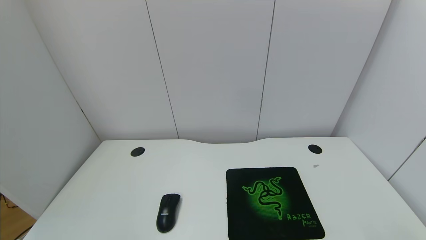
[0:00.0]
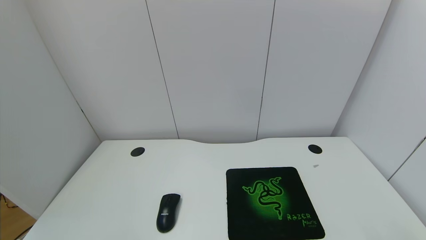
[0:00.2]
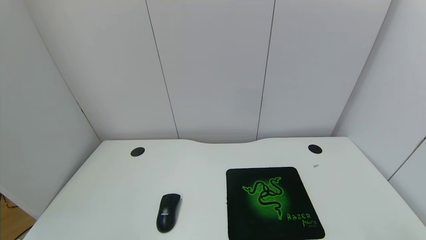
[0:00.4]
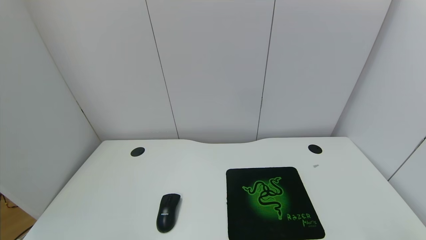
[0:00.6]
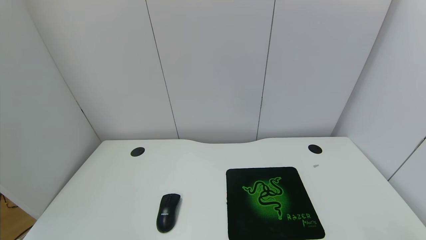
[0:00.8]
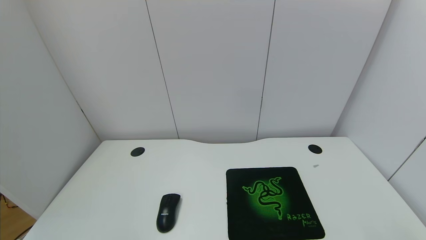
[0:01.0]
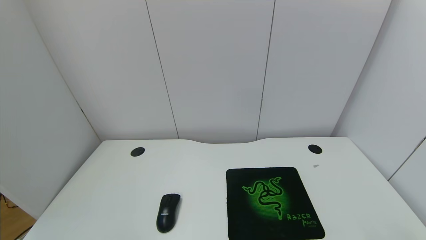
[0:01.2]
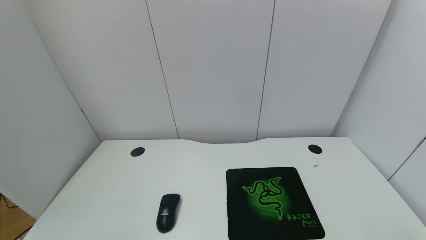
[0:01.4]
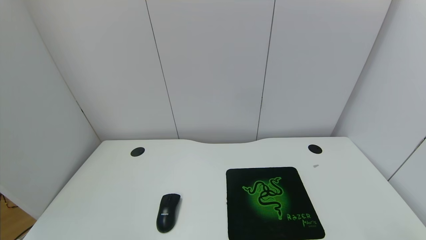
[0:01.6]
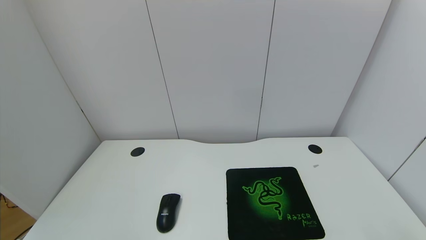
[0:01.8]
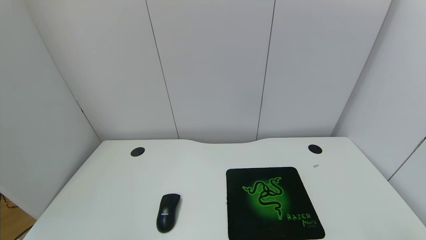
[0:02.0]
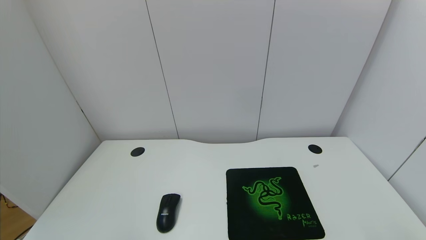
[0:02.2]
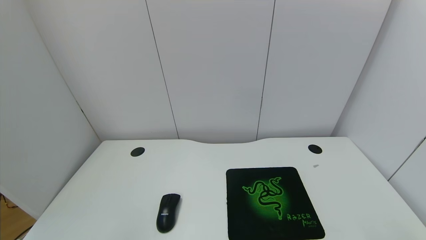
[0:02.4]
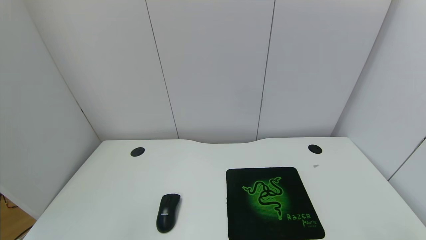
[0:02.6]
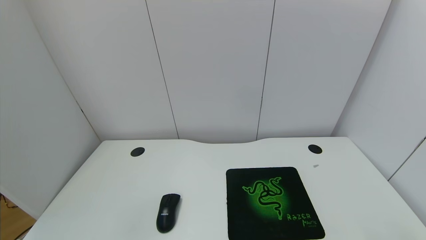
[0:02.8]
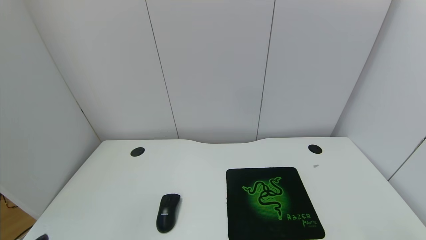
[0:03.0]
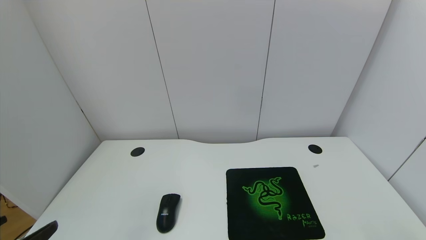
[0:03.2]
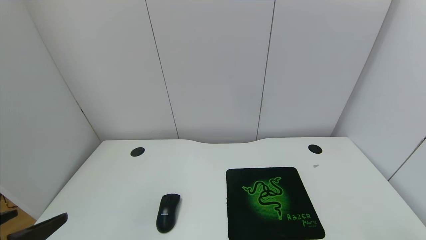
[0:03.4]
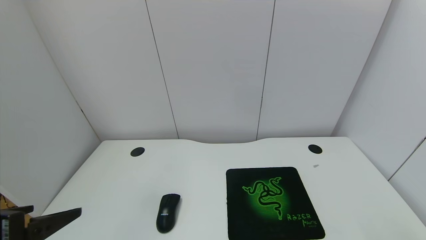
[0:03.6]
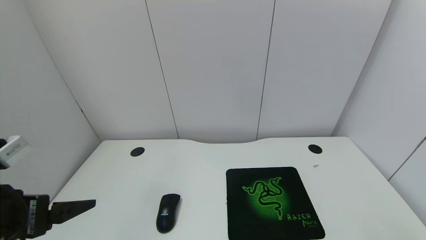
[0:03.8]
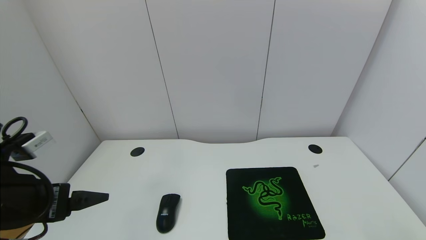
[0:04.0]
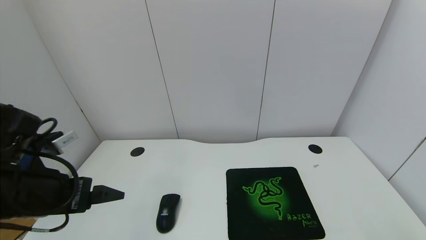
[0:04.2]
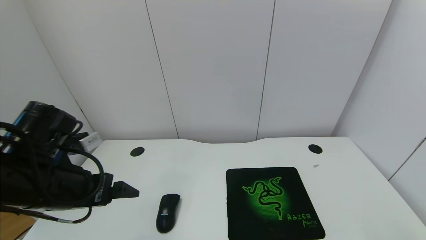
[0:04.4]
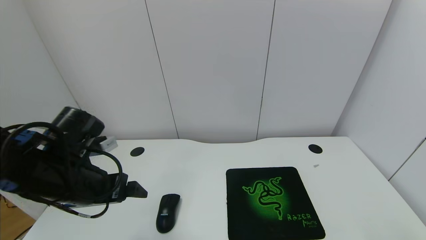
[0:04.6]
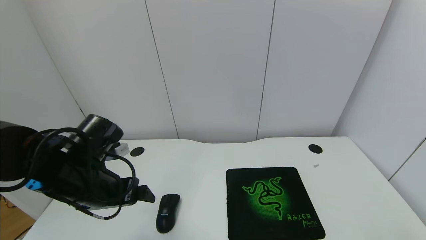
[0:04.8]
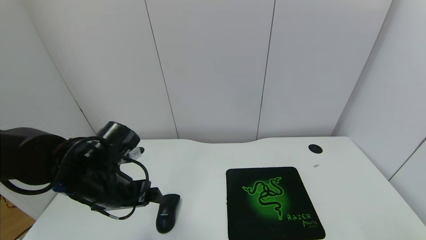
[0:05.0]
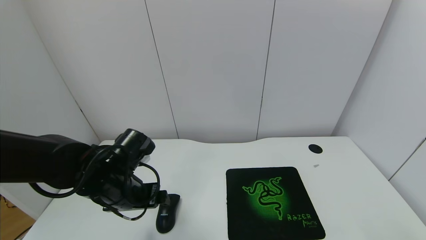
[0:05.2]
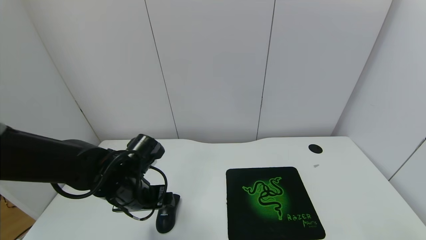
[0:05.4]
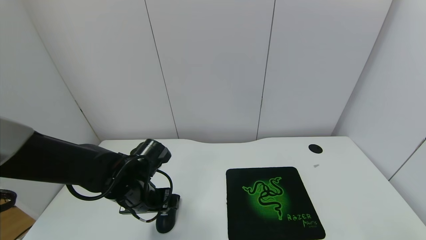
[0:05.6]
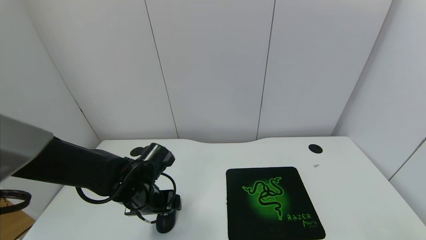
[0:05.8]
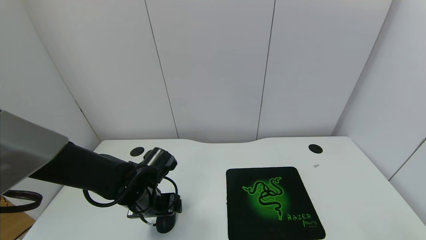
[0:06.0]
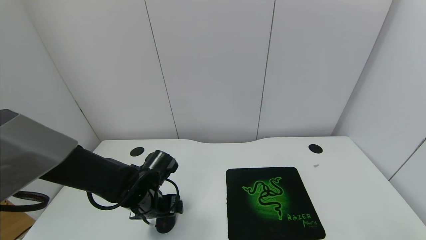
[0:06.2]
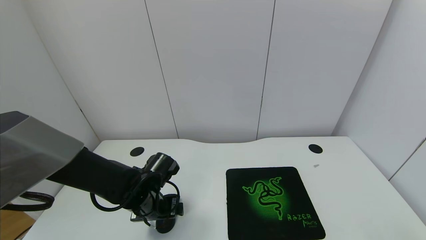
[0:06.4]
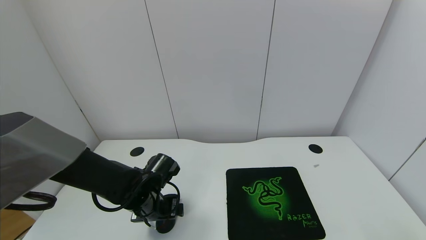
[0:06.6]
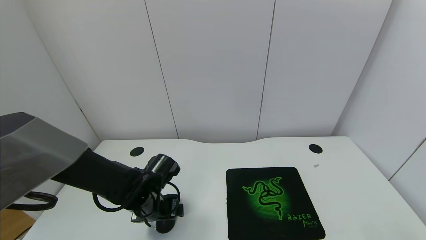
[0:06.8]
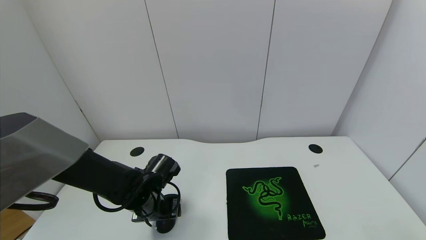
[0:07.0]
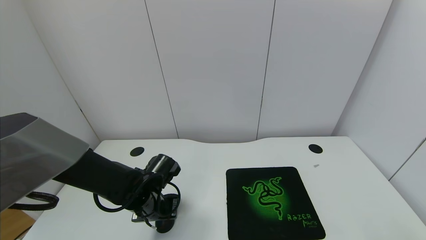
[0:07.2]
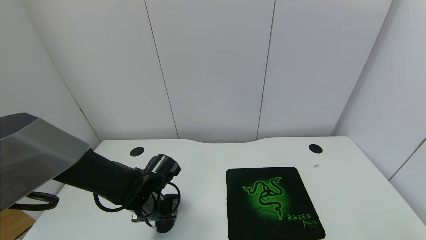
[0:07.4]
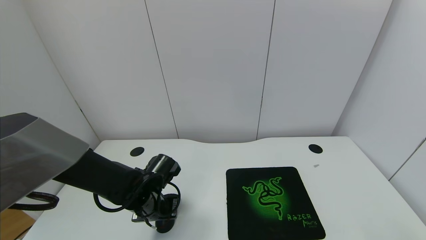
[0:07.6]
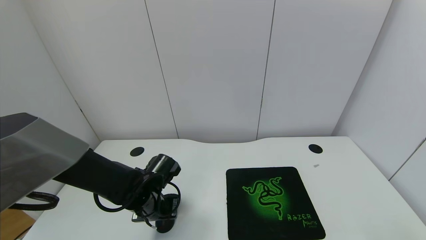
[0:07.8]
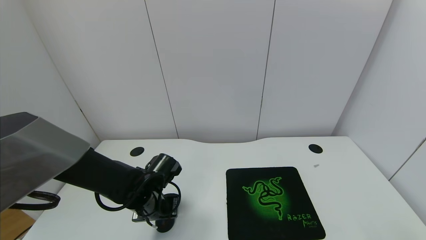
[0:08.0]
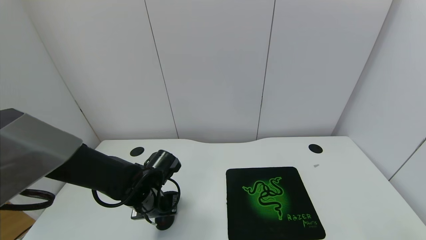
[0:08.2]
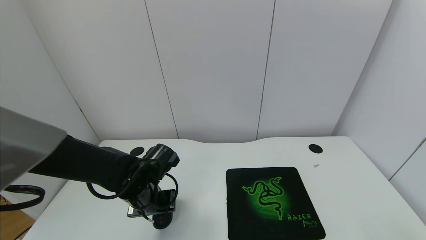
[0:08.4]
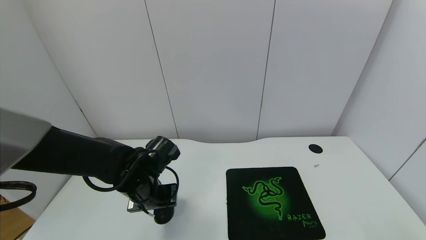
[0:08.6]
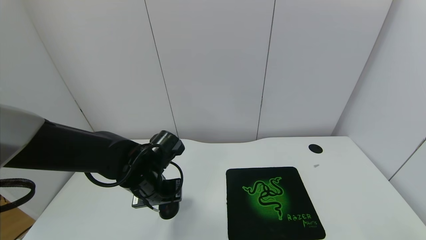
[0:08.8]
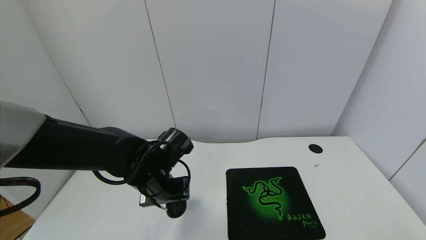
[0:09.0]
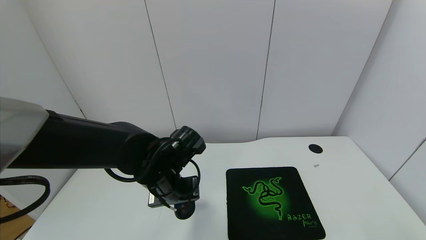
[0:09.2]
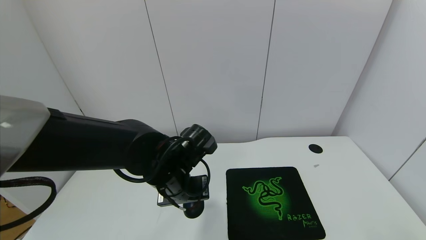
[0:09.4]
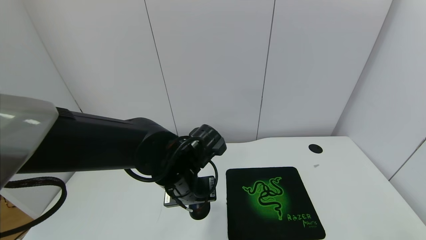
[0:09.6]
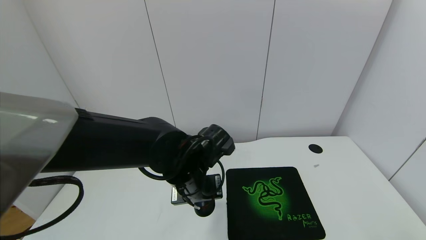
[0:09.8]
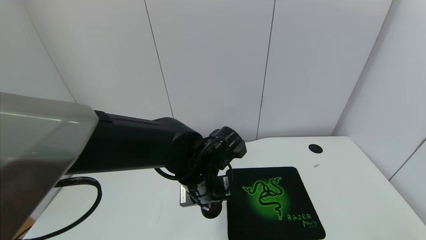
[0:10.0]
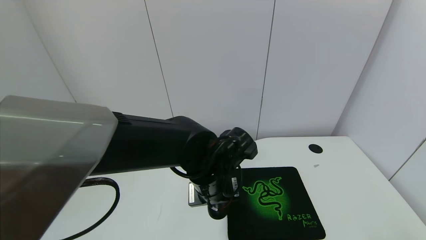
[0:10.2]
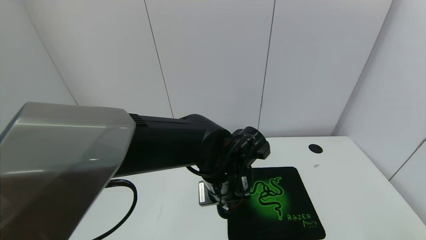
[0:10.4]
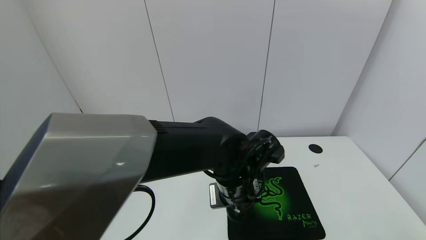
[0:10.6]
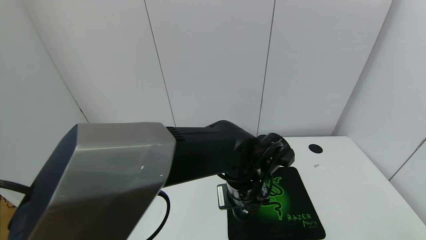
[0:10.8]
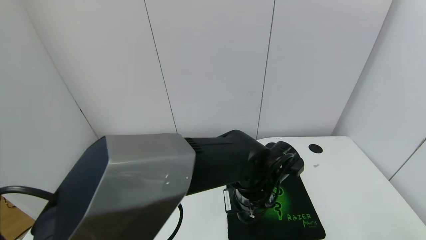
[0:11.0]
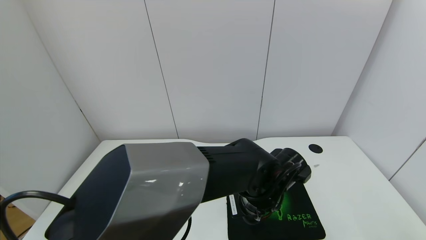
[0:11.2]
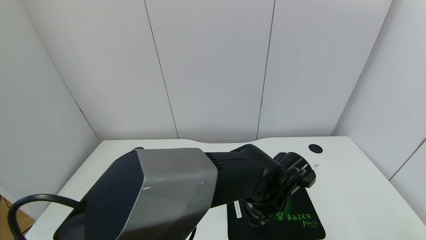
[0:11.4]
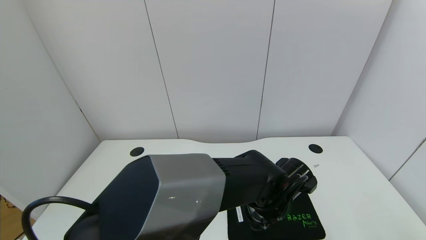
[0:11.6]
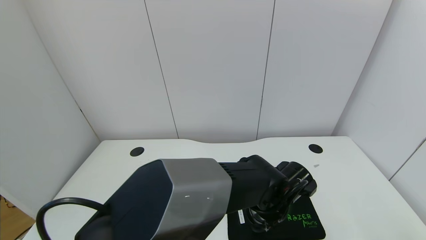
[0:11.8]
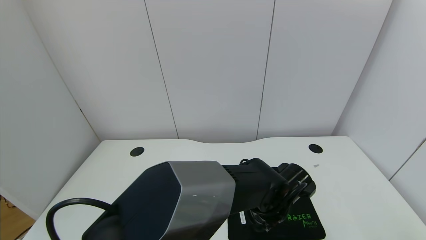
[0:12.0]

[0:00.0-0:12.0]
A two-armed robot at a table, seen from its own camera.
Task of the whole recording: use the gripper to move the mouse from one side of the table to the mouse pad on the opposite side.
Step, 0:00.0 to 0:08.0: Grasp the mouse with the left gripper.
0:00.0 to 0:01.6: The two grippers keep their place.
0:03.0 to 0:04.4: The left gripper goes roughly 20 cm forward.
0:04.4 to 0:06.0: The left gripper travels downward, forward and to the right by roughly 15 cm.
0:06.0 to 0:07.6: The left gripper closes up.
0:07.6 to 0:09.0: The left gripper travels upward by about 10 cm.
0:09.0 to 0:10.4: The left gripper shifts about 15 cm to the right.
0:10.4 to 0:12.0: The left gripper shifts about 10 cm to the right and downward.

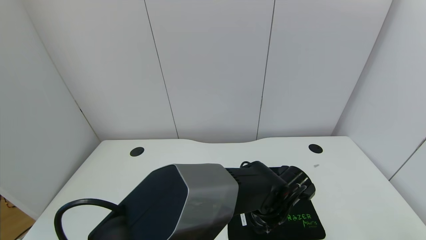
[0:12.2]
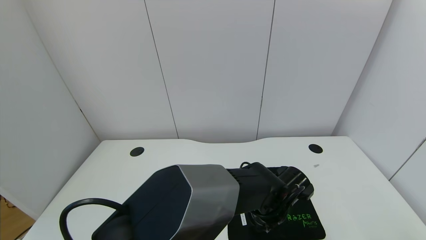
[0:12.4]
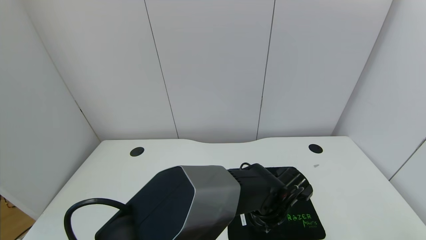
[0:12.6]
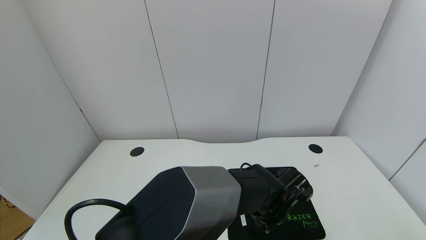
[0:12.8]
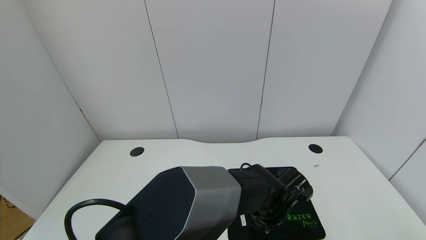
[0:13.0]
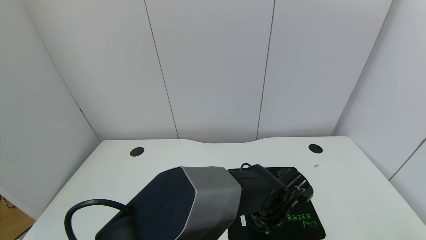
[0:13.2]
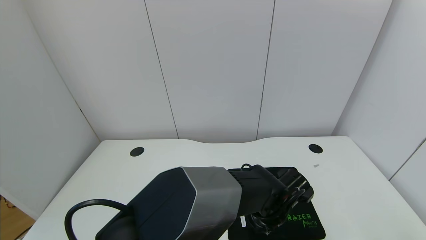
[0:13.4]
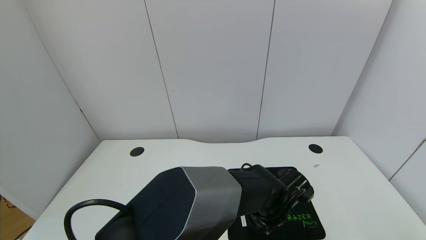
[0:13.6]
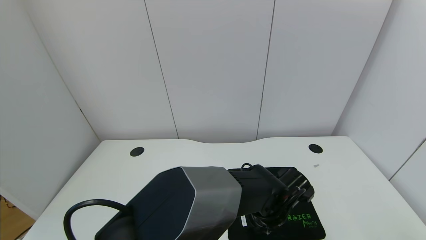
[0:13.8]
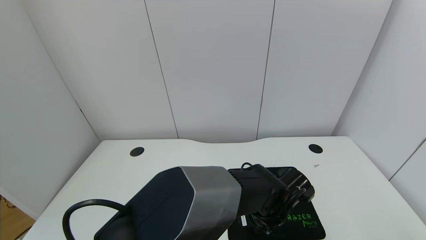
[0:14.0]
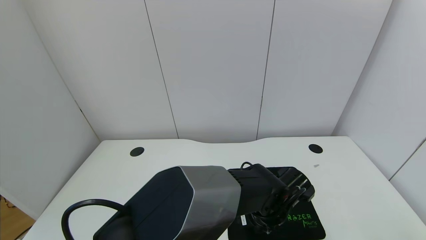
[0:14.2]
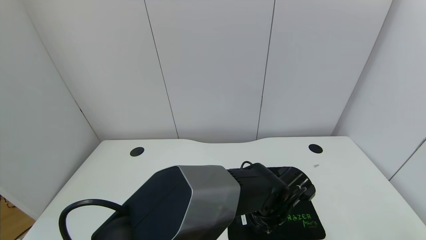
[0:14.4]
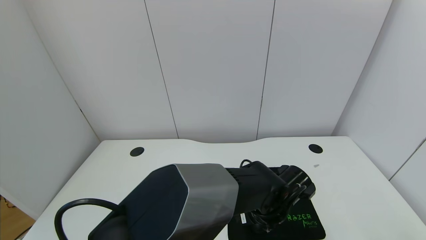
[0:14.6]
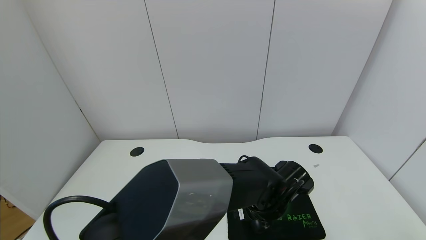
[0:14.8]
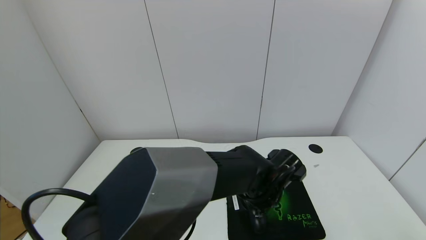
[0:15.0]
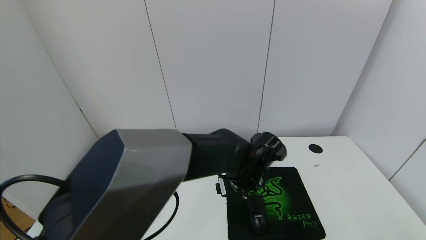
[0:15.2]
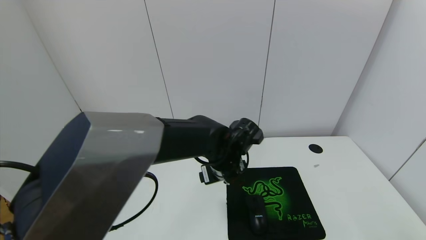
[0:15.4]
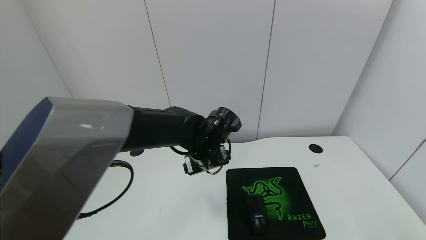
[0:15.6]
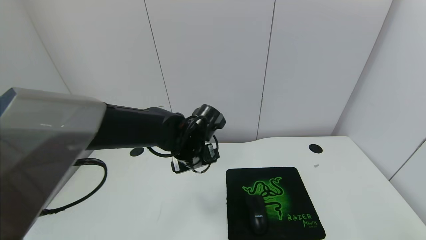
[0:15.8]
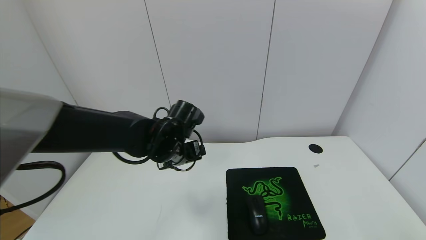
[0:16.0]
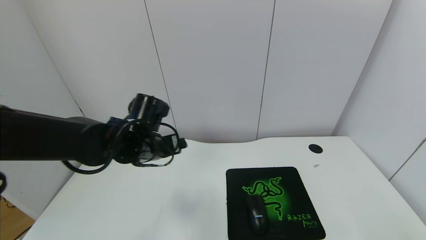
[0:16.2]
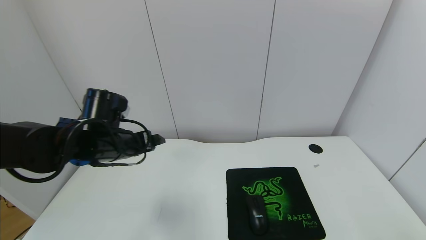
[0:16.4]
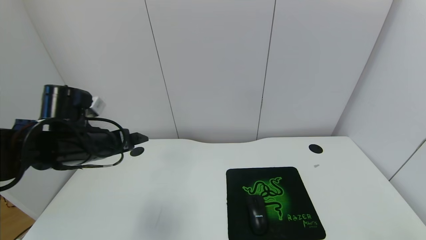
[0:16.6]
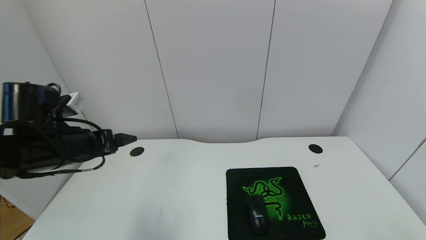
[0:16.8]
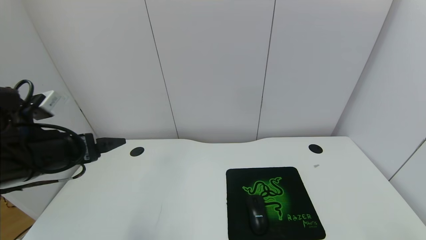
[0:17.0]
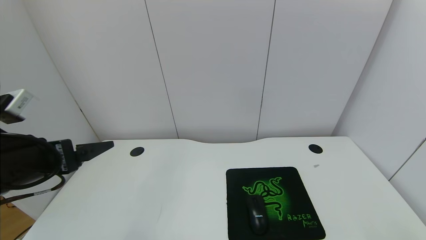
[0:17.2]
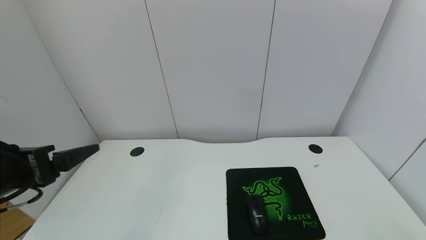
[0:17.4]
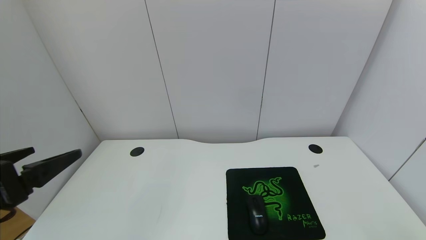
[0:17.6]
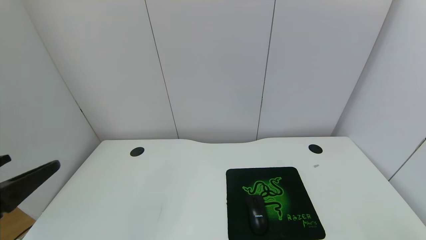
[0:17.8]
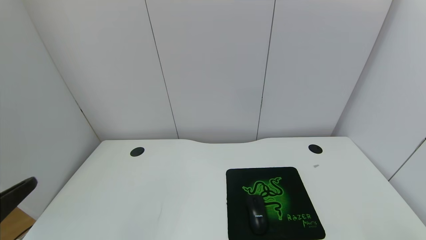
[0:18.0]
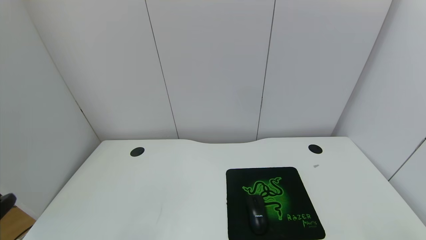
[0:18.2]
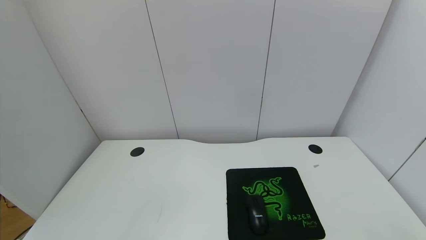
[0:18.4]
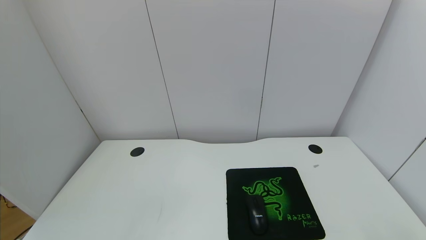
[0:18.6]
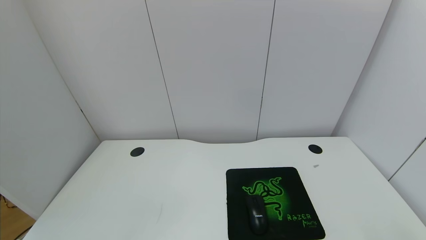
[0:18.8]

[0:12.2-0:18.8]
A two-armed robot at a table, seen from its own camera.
Task of the whole recording: use the gripper to move the mouse from one side of the table to the mouse pad on the opposite side.
Step, 0:12.2 to 0:14.8: Place the mouse on the mouse pad with the left gripper.
0:12.2 to 0:13.8: The left gripper opens up.
0:13.8 to 0:15.4: The left gripper shifts about 15 cm to the left, upward and forward.
0:15.4 to 0:17.2: The left gripper moves to the left and backward, some 30 cm.
0:17.2 to 0:18.8: The left gripper heads backward, covering about 20 cm.
